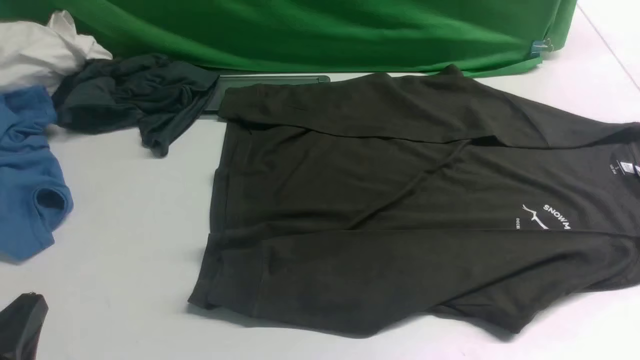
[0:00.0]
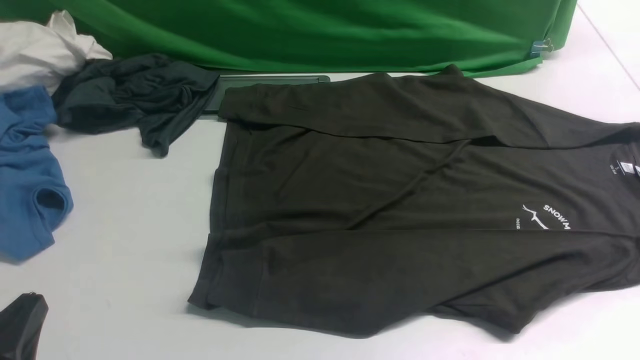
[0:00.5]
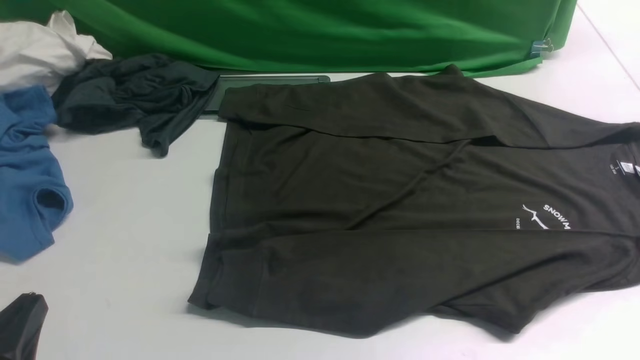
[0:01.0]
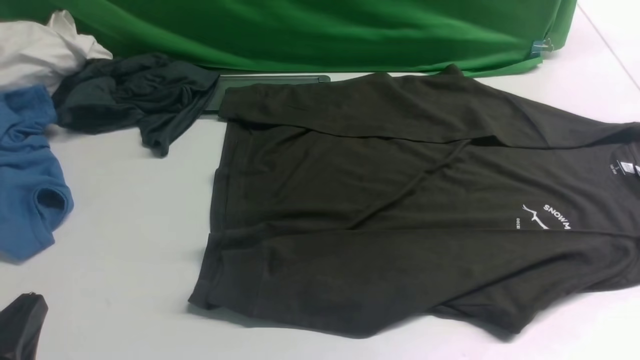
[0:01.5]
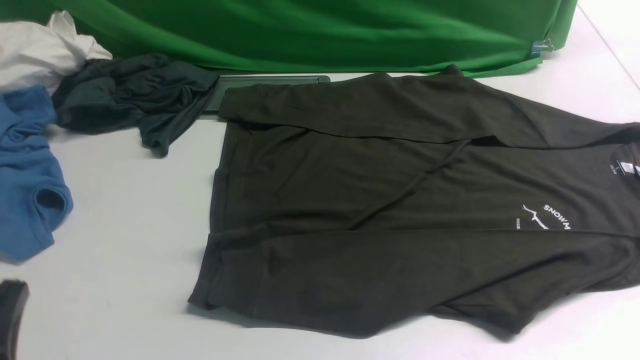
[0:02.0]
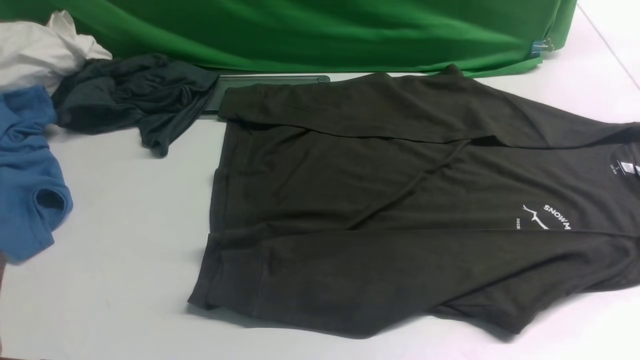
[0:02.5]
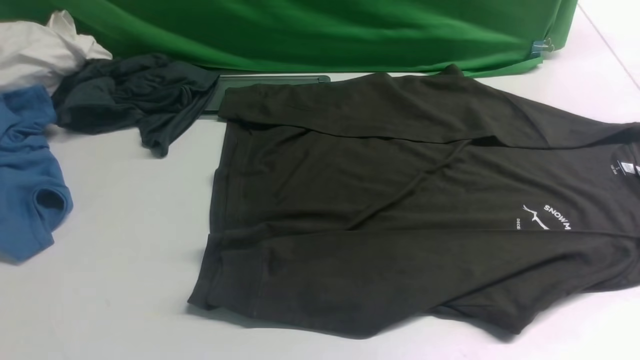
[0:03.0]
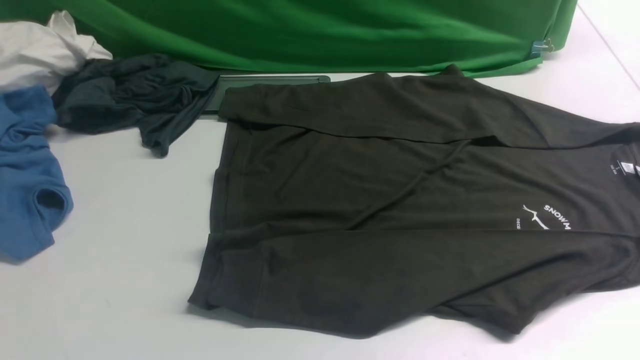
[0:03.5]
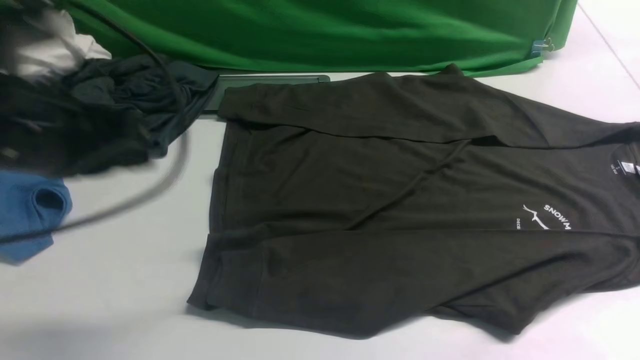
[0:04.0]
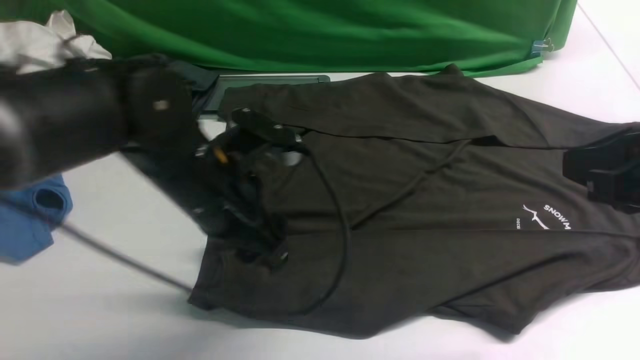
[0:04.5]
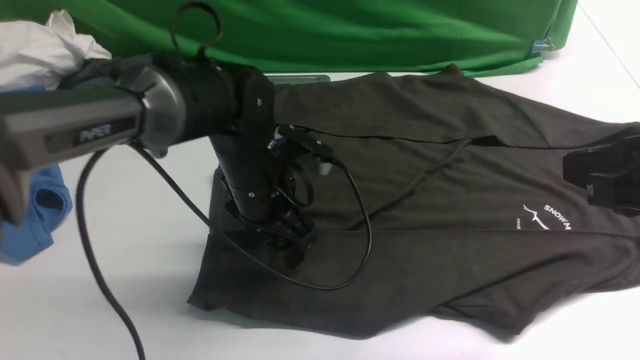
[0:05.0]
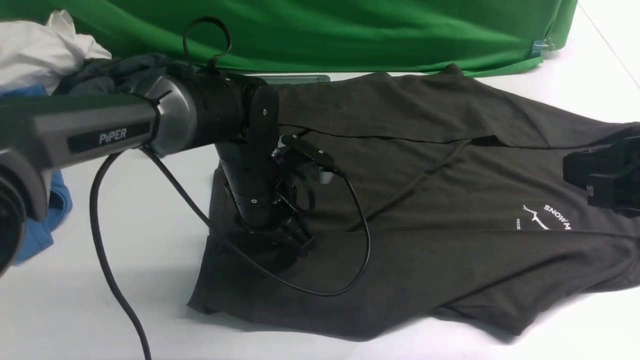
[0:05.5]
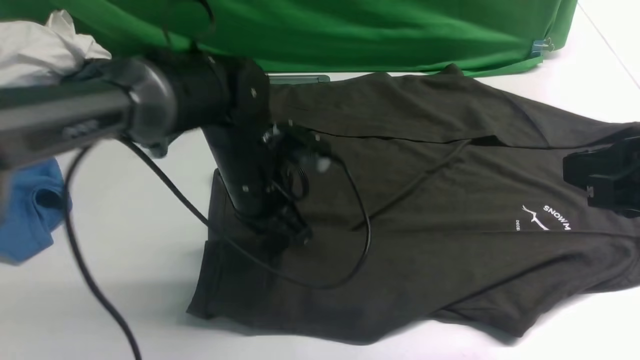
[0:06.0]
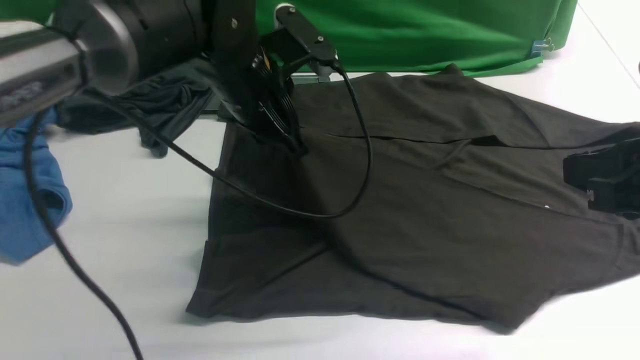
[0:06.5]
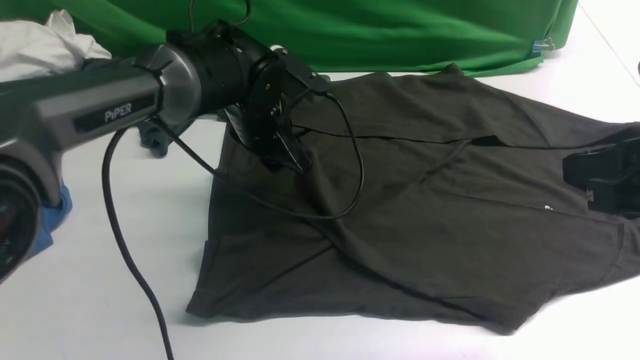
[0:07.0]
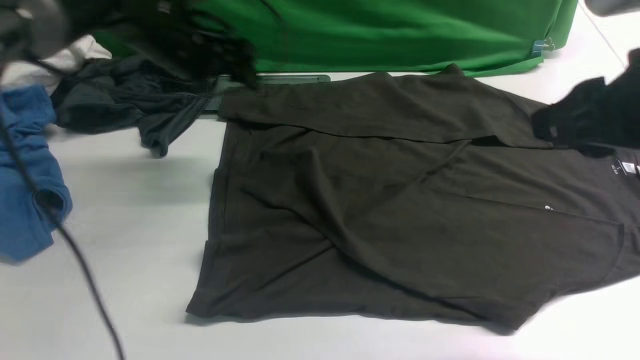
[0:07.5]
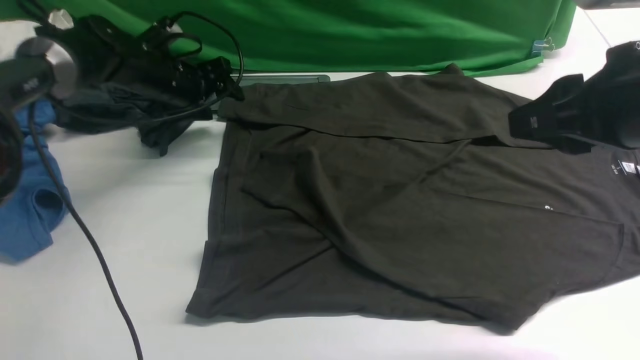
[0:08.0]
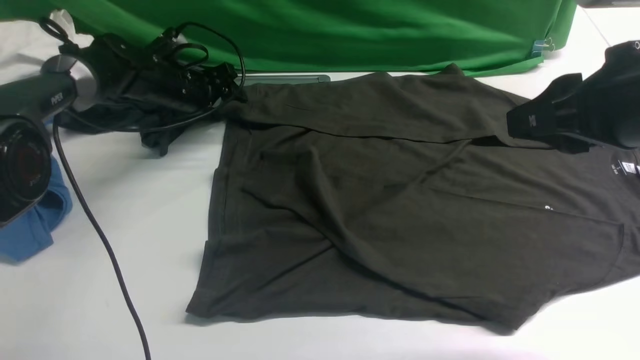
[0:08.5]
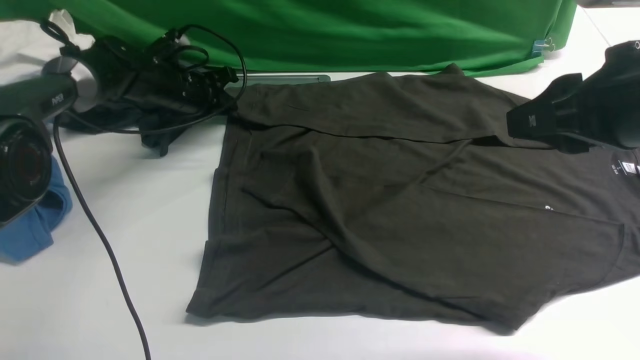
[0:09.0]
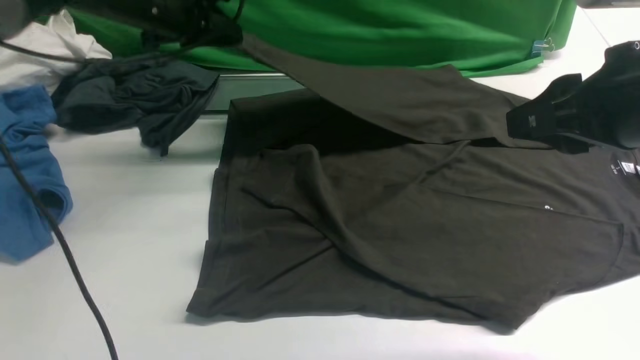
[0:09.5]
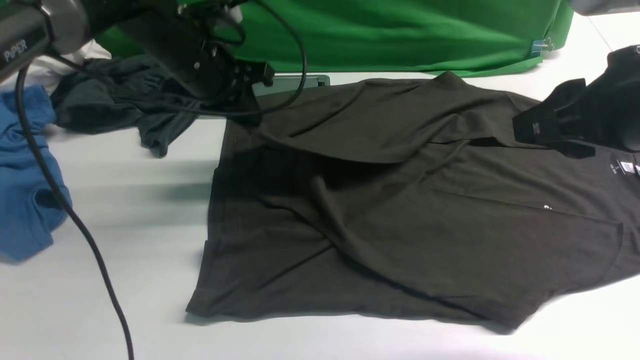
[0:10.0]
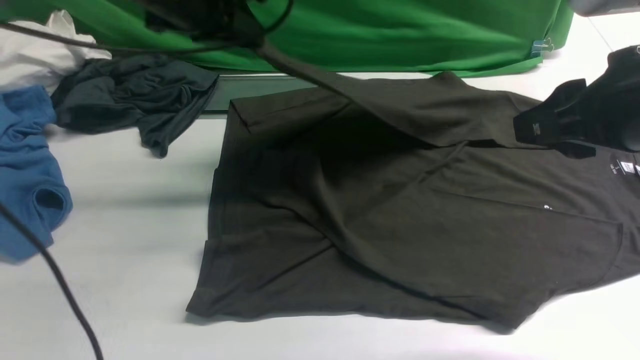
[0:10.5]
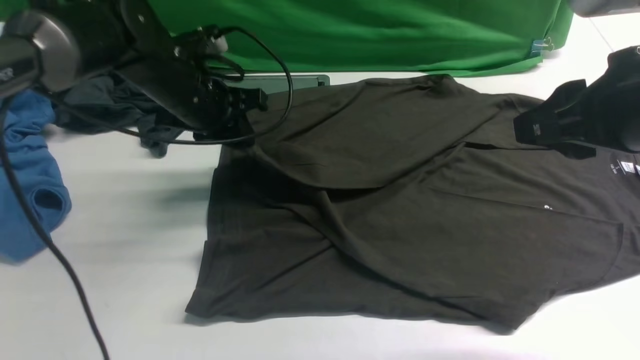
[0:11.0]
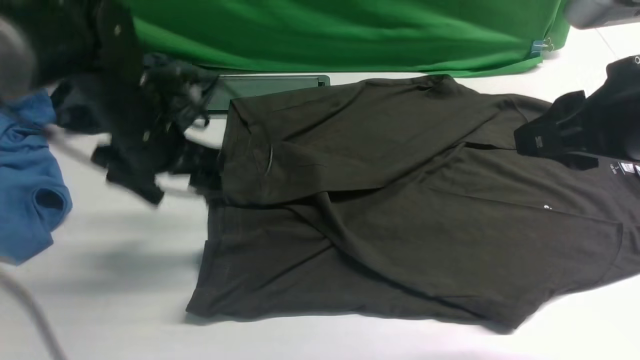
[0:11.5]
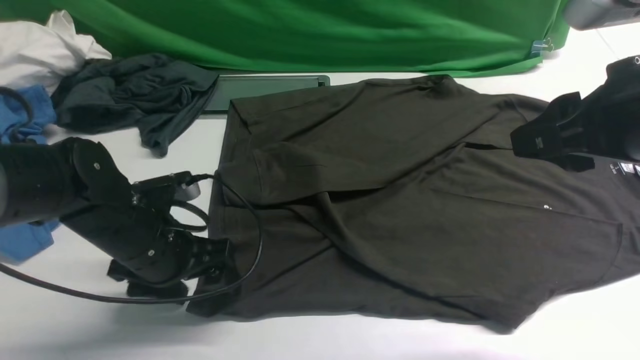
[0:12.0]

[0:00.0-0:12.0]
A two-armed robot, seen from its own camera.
Step, 0:00.0 to 0:06.0: use the left arm to clamp the cuff closest to it.
Step, 0:06.5 to 0:07.0: use the left arm to drag and place the cuff at the centered position on the left edge of the fabric.
Step, 0:07.5 to 0:09.0: use the left arm to clamp the cuff farthest from it.
Step, 0:09.5 to 0:11.5: use the left arm to drag and drop the cuff onto the cuff closest to the left arm.
0:00.0 to 0:02.0: The grippers stay close to where they were, moving slightly.
0:02.0 to 0:04.0: The left gripper moves forward and upward, roughly 20 cm.
0:04.0 to 0:06.0: The left gripper travels to the right, downward and forward by about 20 cm, and opens, then closes once more.
0:06.0 to 0:08.0: The right gripper moves about 5 cm. Meanwhile the left gripper goes roughly 25 cm forward and to the left, and opens its fingers.
0:08.0 to 0:10.0: The left gripper moves upward, to the right and backward, roughly 15 cm, and closes.
0:10.0 to 0:12.0: The left gripper is displaced backward and downward by roughly 20 cm, and opens.

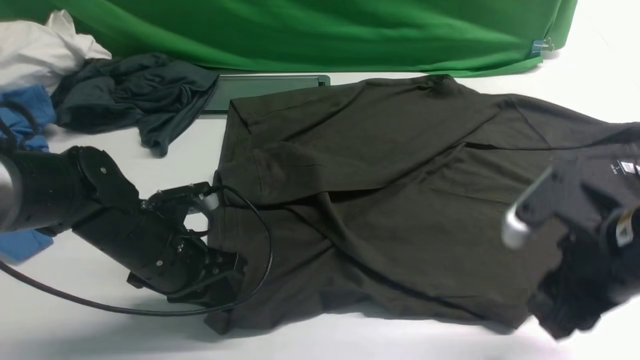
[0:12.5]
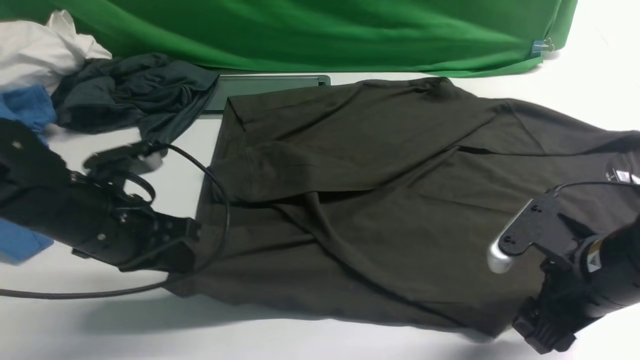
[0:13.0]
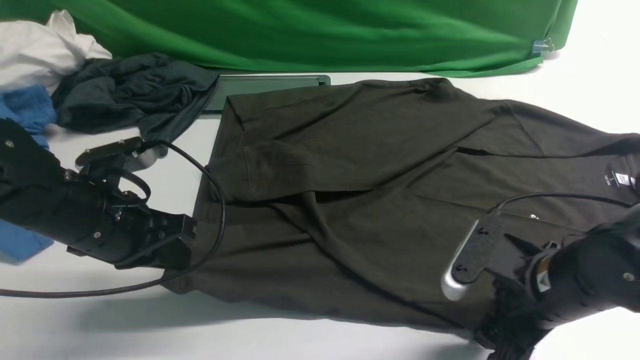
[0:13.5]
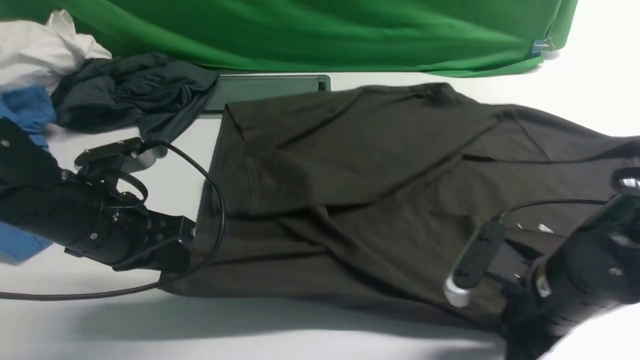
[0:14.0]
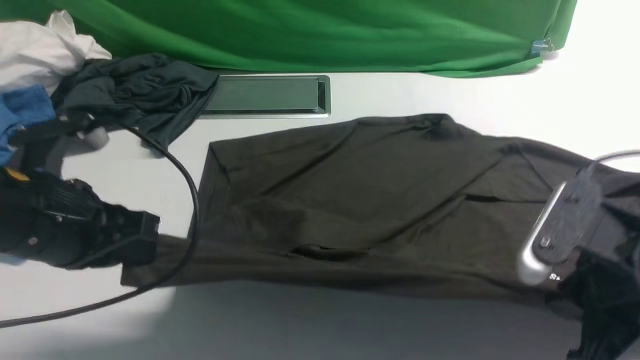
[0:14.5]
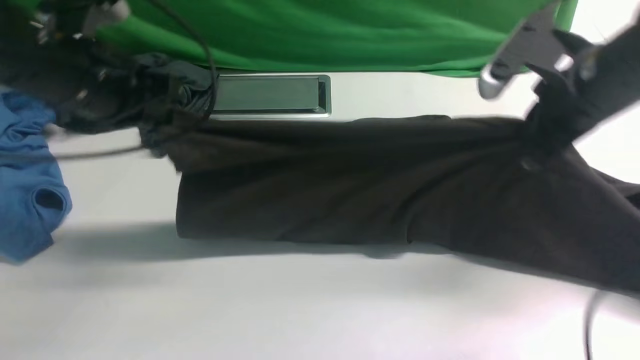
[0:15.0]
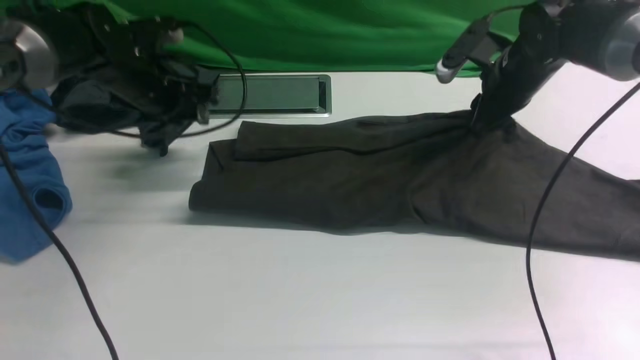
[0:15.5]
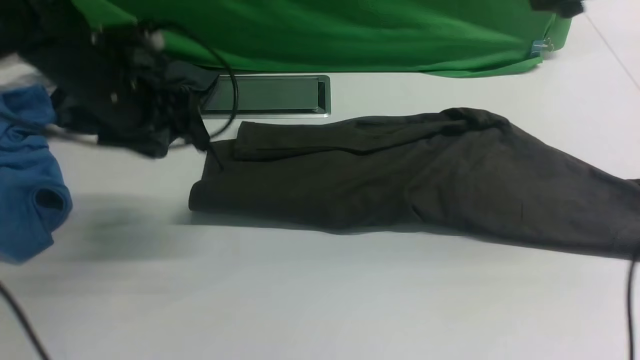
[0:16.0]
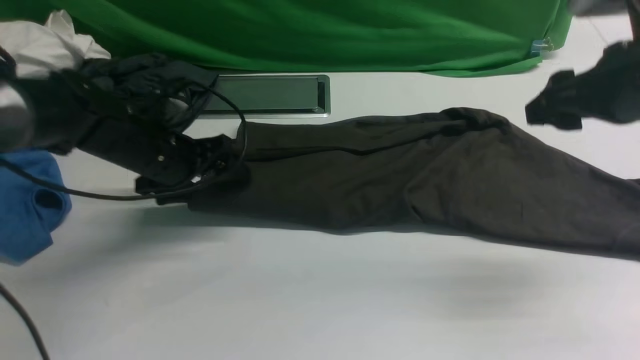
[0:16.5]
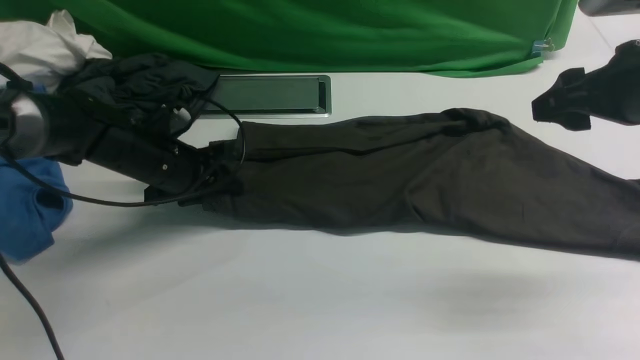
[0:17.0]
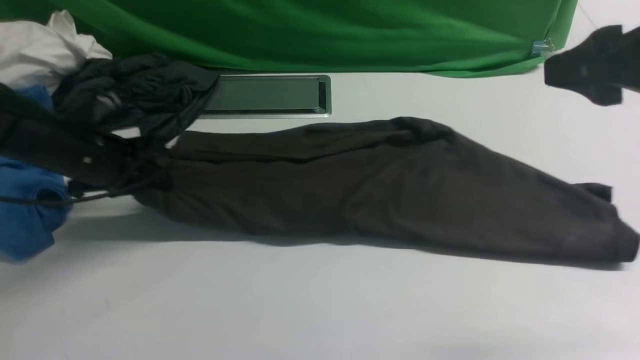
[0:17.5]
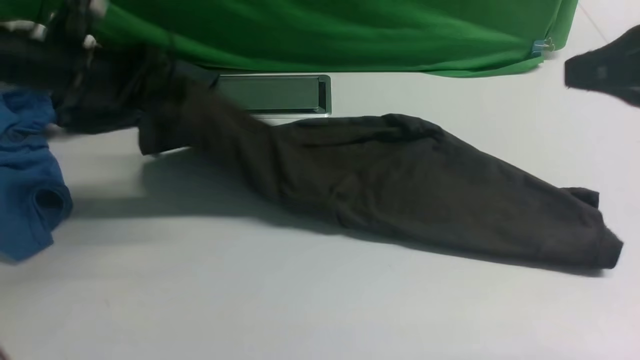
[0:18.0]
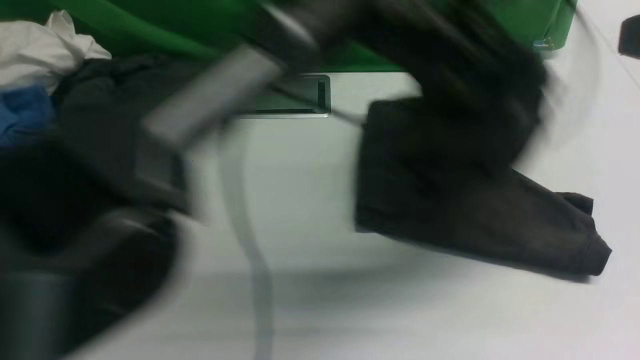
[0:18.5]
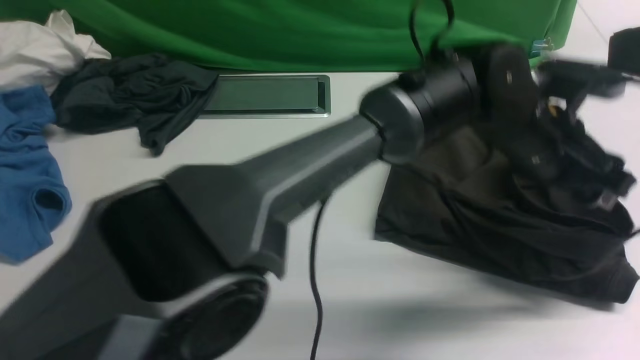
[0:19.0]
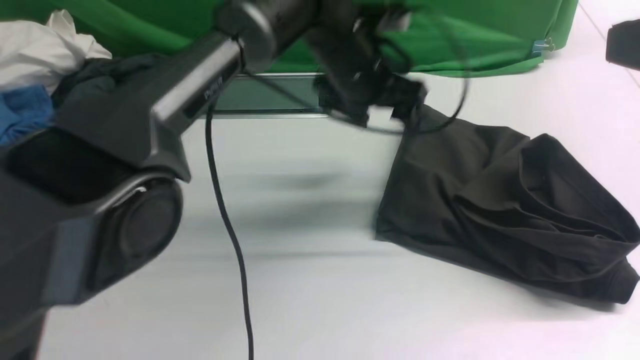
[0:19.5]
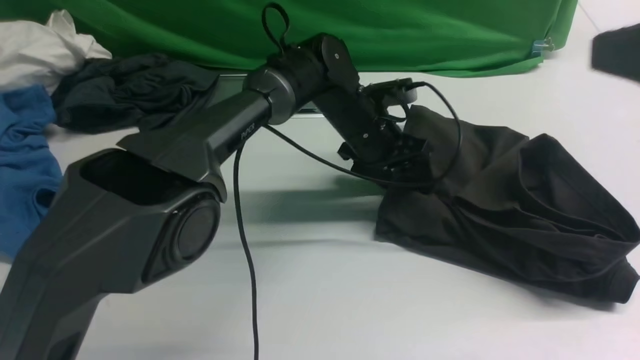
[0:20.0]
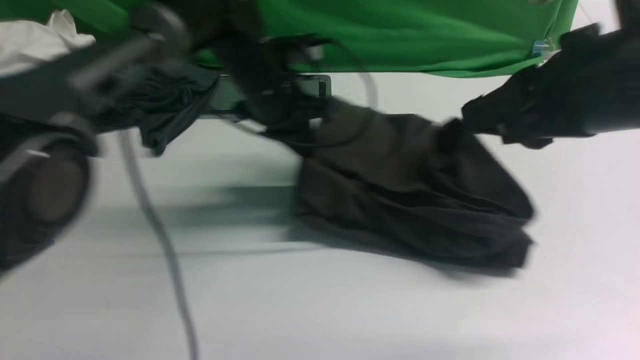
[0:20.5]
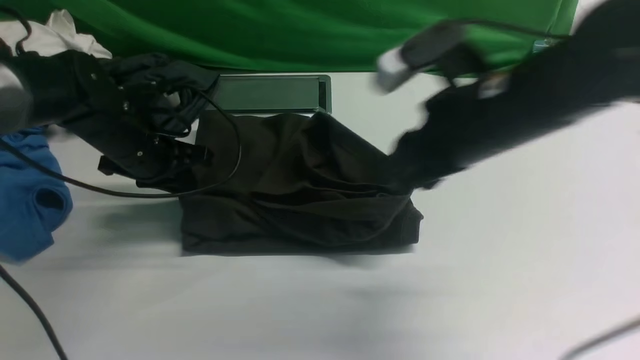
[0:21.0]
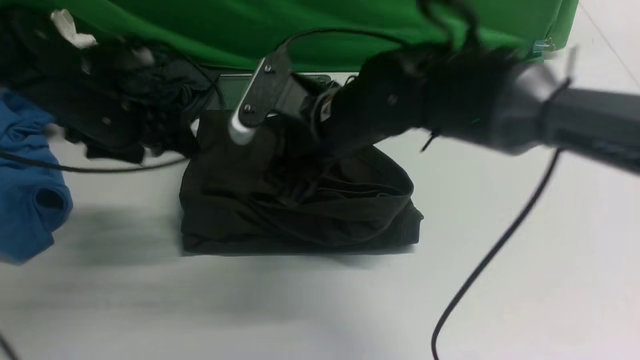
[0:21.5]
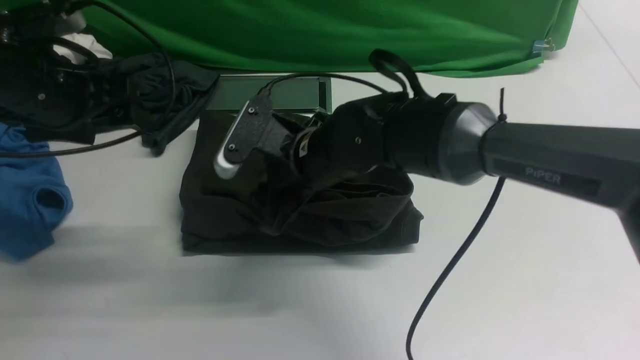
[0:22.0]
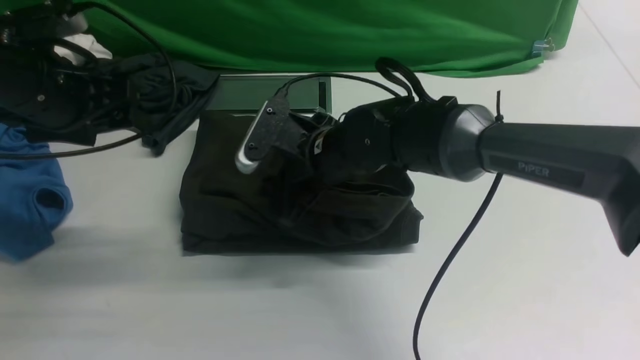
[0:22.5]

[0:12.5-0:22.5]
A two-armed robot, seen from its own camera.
Step, 0:12.5 to 0:14.0: use both arms simultaneously to clamp the lower edge of the clothing fabric.
Step, 0:14.5 to 0:16.0: use both arms to drag the lower edge of the fabric forward and fold it over the upper edge.
Step, 0:16.5 to 0:17.5: Hold the left edge of the fabric with your left arm.
Step, 0:18.0 to 0:19.0: Drag the left edge of the fabric to the left with your left arm and fold it to the right edge.
0:12.5 to 0:14.5: The left gripper shifts some 10 cm upward; the right gripper travels downward and back again, roughly 10 cm each way, and closes its fingers.
0:14.5 to 0:16.5: The right gripper heads forward and upward, covering approximately 15 cm, and opens its fingers, while the left gripper is displaced forward and downward by approximately 20 cm, and opens up.
0:16.5 to 0:18.5: The right gripper goes roughly 15 cm backward and upward, and closes up; the left gripper moves to the right, about 30 cm, and closes.
0:18.5 to 0:20.5: The left gripper moves to the left, about 20 cm, and opens, then closes once more. The right gripper is displaced to the left, forward and downward by roughly 10 cm.
0:20.5 to 0:22.5: The left gripper is displaced to the left, backward and upward by some 20 cm, and opens, while the right gripper shifts roughly 30 cm to the left, downward and forward, and opens and closes again.
